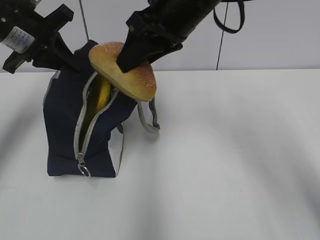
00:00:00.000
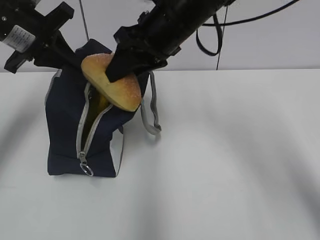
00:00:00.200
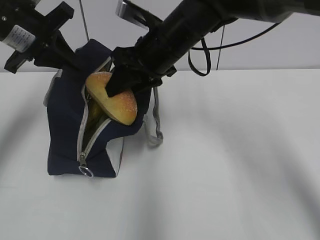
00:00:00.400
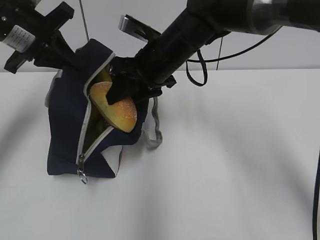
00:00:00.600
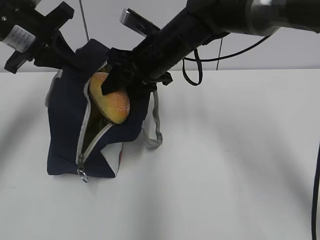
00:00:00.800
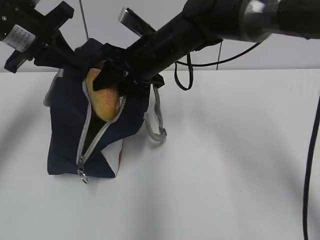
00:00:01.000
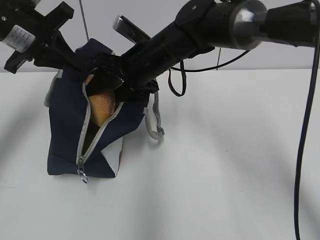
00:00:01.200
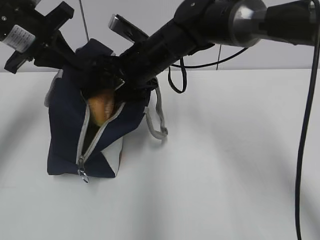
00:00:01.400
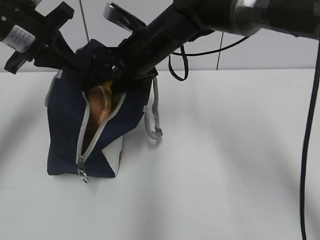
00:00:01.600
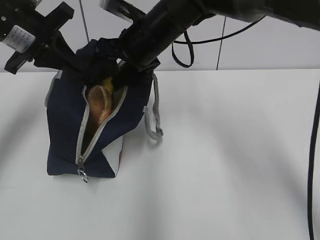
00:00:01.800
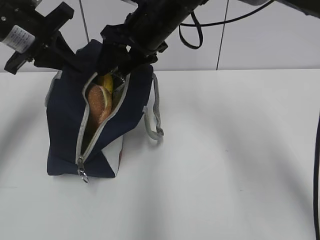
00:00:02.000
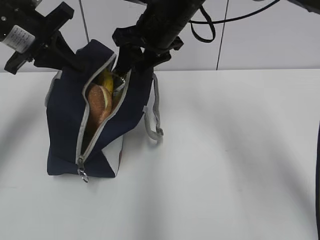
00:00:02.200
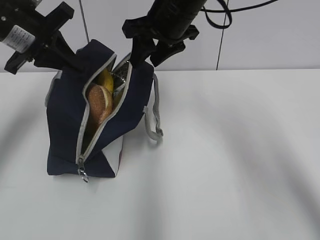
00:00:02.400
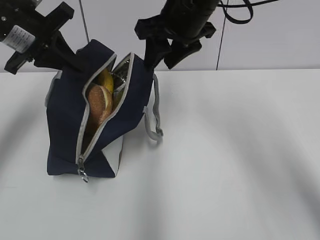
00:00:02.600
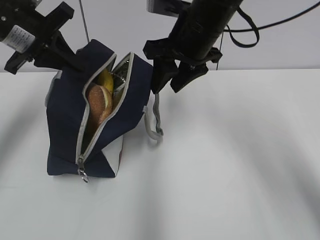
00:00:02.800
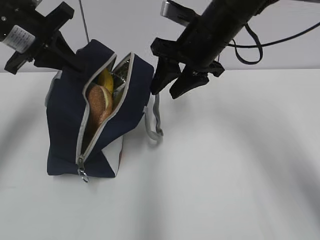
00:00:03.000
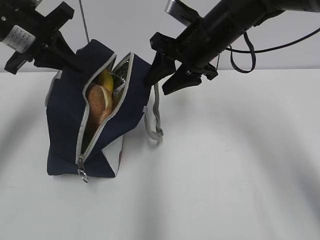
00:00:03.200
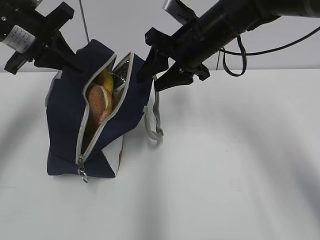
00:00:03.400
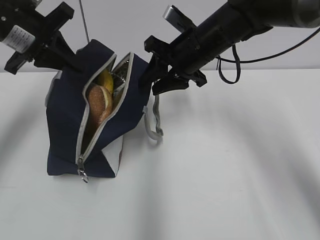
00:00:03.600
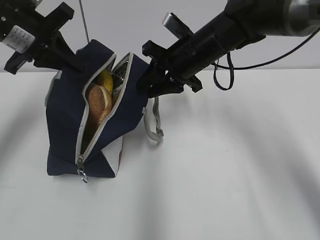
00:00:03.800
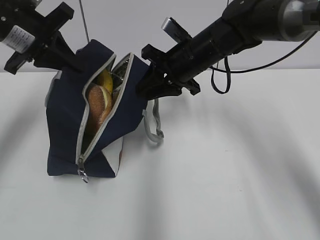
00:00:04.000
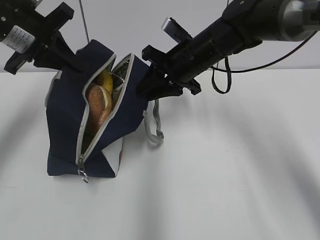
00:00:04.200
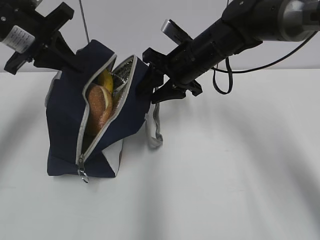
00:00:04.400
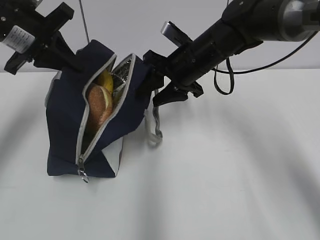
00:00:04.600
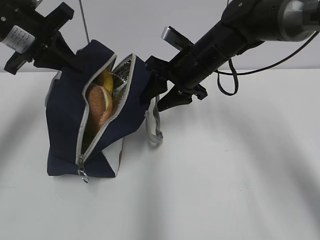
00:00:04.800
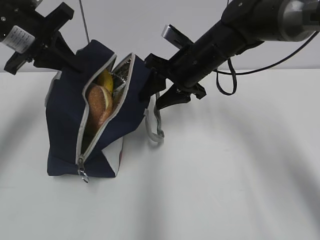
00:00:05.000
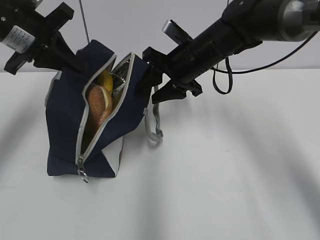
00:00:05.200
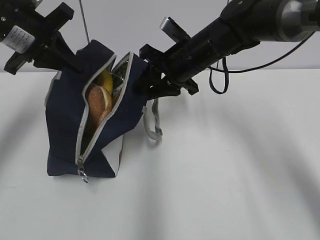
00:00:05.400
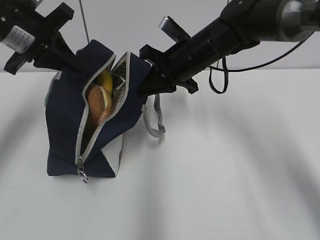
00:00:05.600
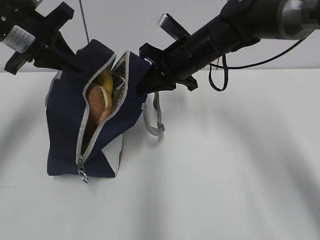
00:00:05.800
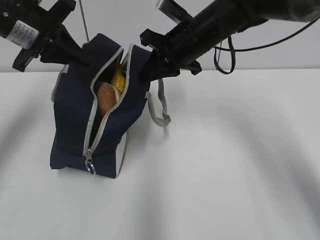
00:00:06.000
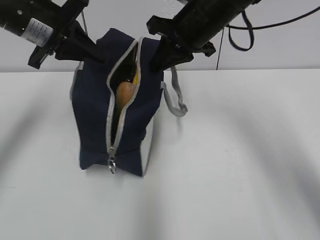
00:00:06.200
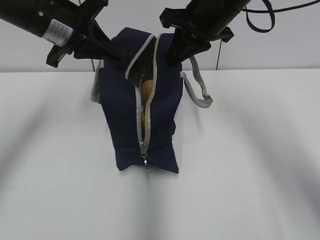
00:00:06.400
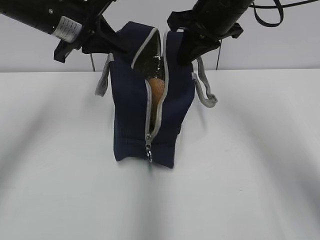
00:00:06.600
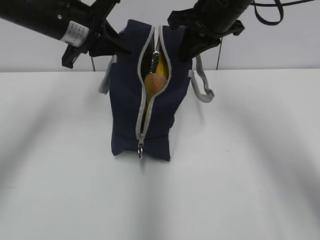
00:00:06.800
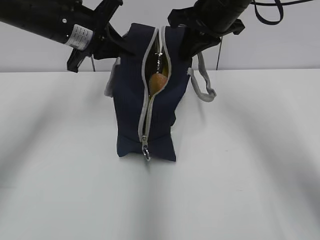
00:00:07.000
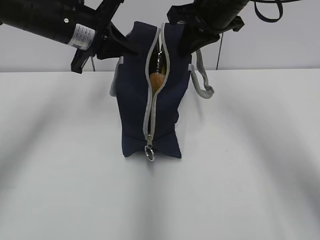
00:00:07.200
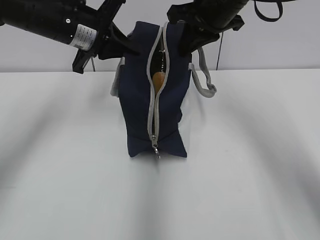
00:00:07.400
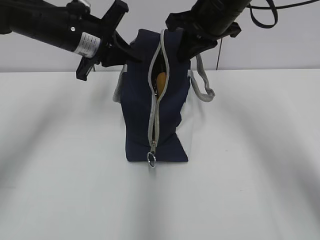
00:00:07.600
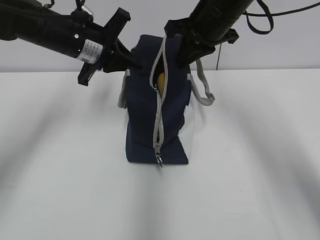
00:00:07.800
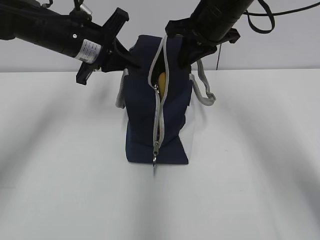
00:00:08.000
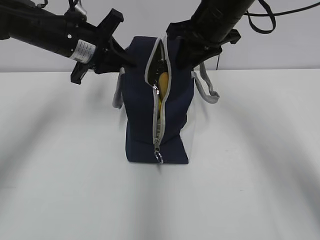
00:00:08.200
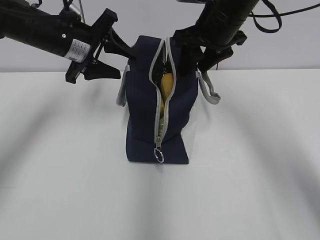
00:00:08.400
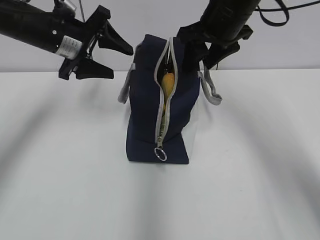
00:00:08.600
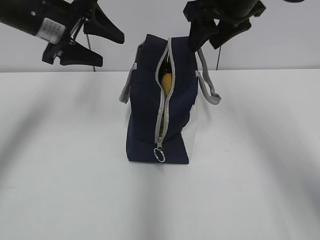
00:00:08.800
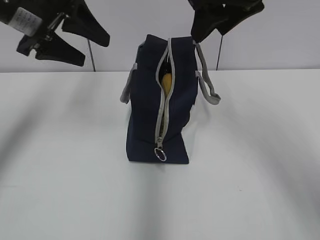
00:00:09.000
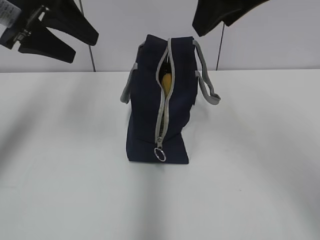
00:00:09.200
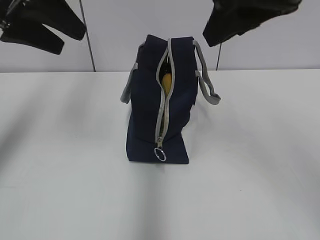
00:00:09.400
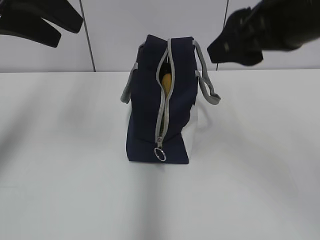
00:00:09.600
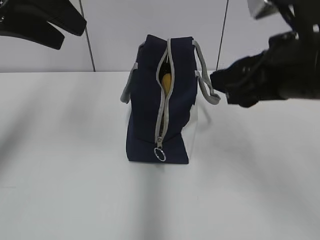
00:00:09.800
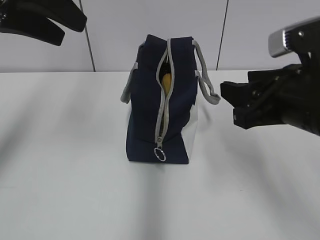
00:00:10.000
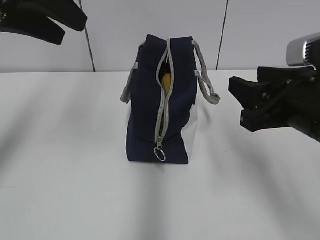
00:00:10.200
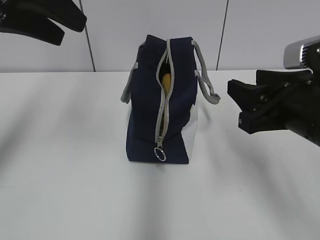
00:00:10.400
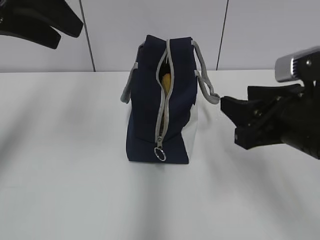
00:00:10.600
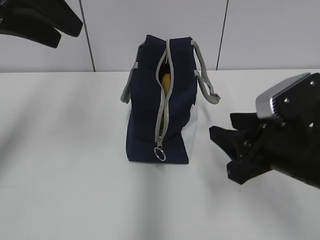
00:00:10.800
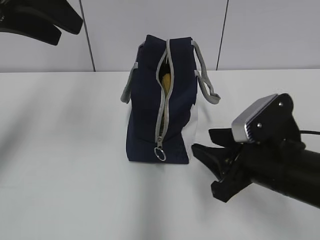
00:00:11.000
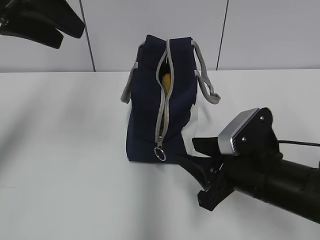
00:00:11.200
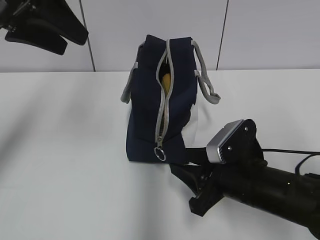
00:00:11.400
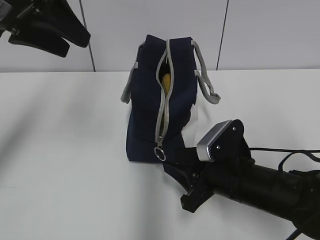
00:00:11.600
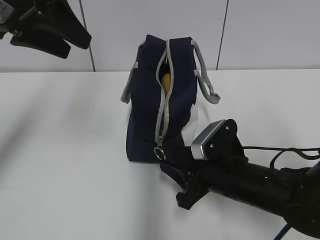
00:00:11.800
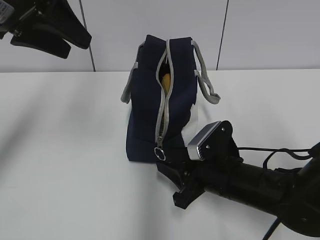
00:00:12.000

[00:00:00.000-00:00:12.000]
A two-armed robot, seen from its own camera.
Step, 00:00:02.000 to 00:00:05.600: Grab the lunch bag with your right hand.
Step, 00:00:05.800 to 00:00:08.200: Move the lunch bag to the right.
00:00:00.000 to 00:00:01.600: The right gripper is displaced downward, forward and to the left by approximately 10 cm, and opens up.
00:00:01.600 to 00:00:03.000: The right gripper is displaced to the right by approximately 10 cm.
00:00:03.000 to 00:00:04.400: The right gripper goes about 5 cm downward.
00:00:04.400 to 00:00:06.000: The right gripper closes up.
00:00:06.000 to 00:00:07.600: The left gripper shifts about 5 cm to the right. The right gripper is displaced upward by about 5 cm.
00:00:07.600 to 00:00:09.000: The left gripper shifts approximately 10 cm upward and to the left, and opens up. Meanwhile the right gripper heads upward and backward, covering about 10 cm, and opens its fingers.
00:00:09.000 to 00:00:10.400: The left gripper moves backward and upward, about 10 cm. Meanwhile the right gripper shifts roughly 20 cm downward and backward.
00:00:10.400 to 00:00:12.000: The right gripper travels downward and to the left by about 15 cm.

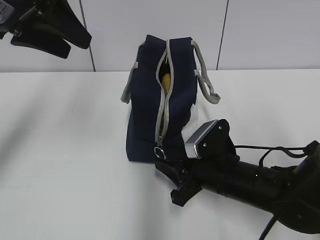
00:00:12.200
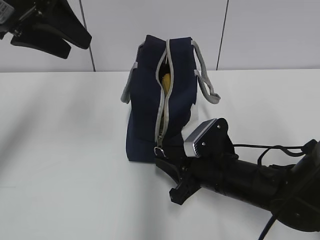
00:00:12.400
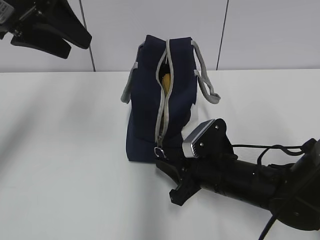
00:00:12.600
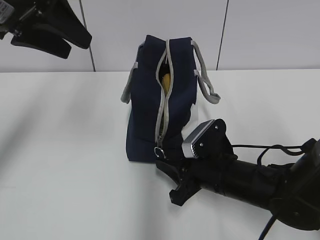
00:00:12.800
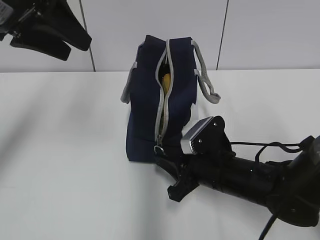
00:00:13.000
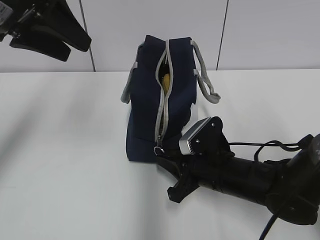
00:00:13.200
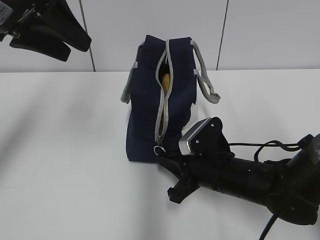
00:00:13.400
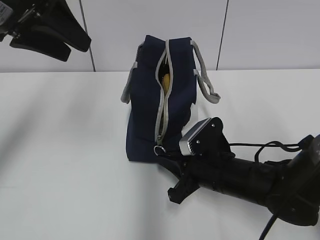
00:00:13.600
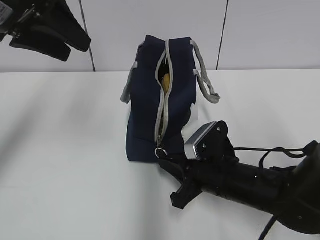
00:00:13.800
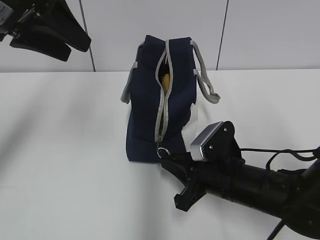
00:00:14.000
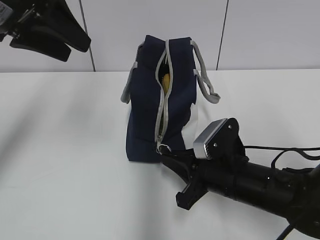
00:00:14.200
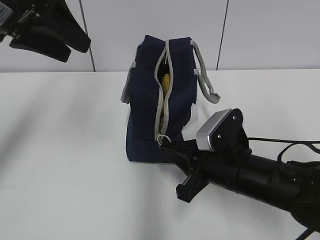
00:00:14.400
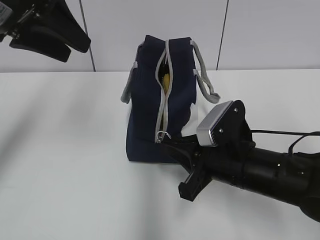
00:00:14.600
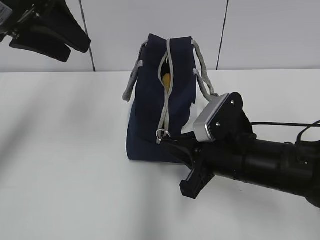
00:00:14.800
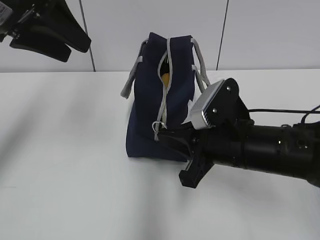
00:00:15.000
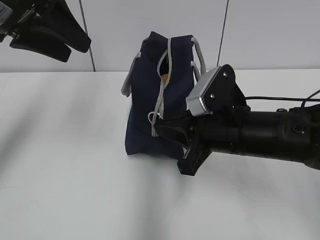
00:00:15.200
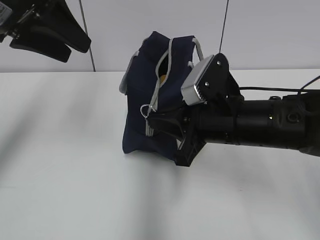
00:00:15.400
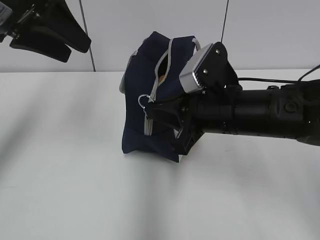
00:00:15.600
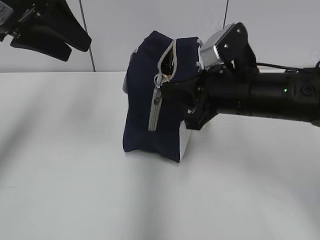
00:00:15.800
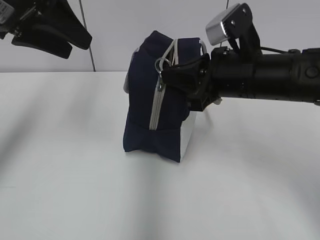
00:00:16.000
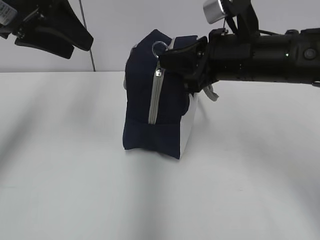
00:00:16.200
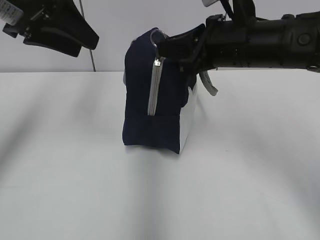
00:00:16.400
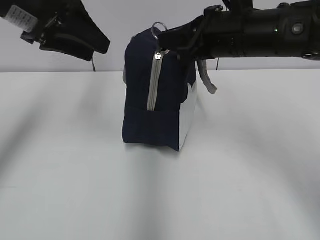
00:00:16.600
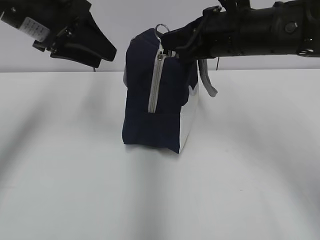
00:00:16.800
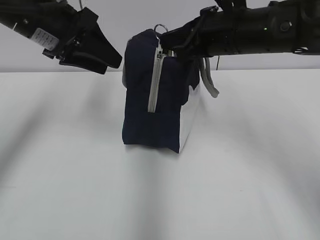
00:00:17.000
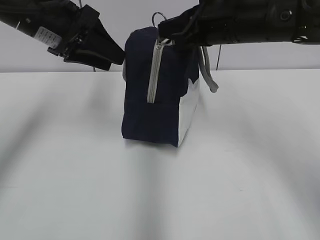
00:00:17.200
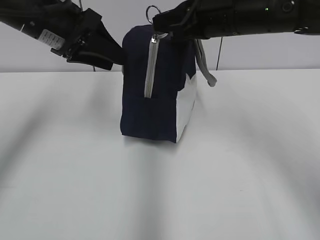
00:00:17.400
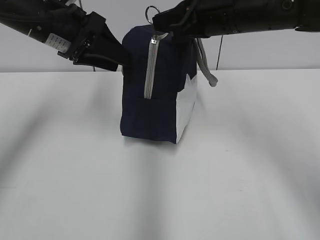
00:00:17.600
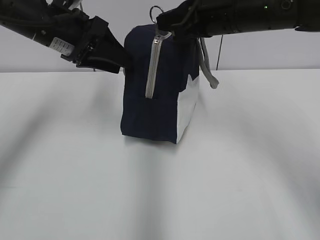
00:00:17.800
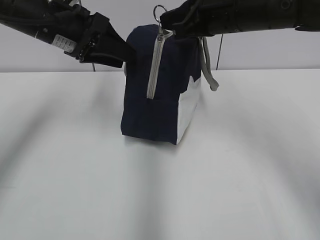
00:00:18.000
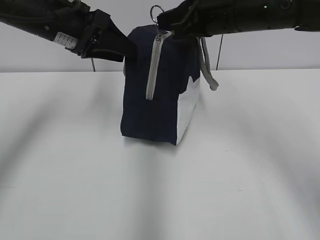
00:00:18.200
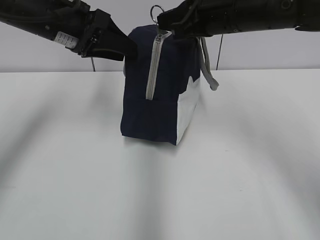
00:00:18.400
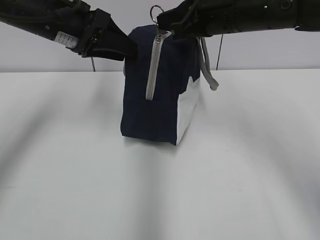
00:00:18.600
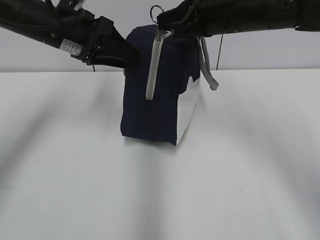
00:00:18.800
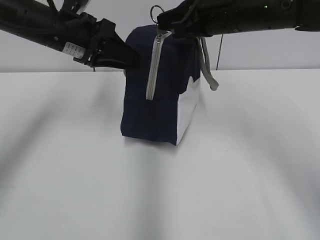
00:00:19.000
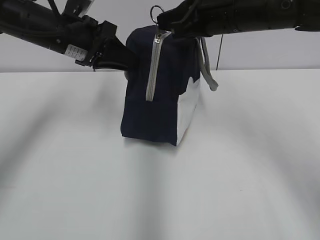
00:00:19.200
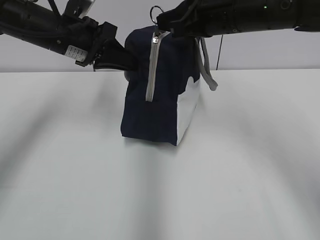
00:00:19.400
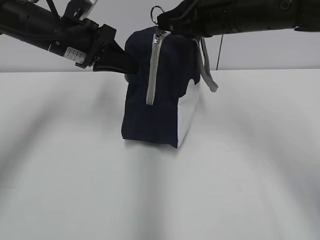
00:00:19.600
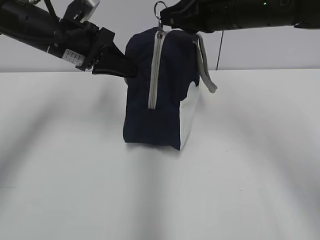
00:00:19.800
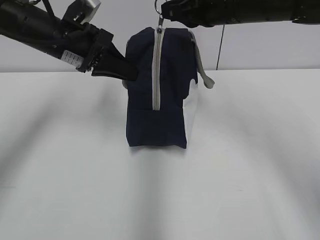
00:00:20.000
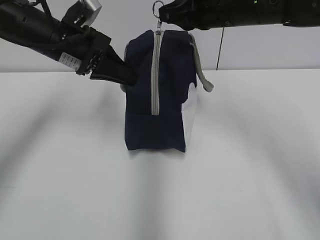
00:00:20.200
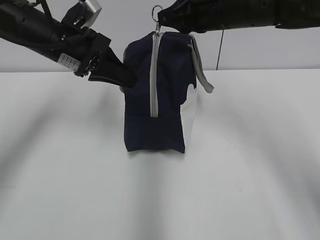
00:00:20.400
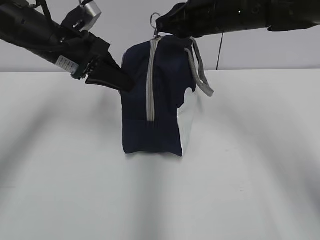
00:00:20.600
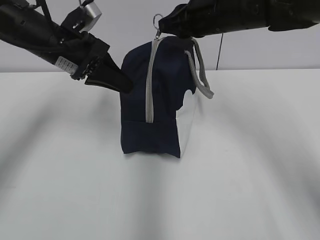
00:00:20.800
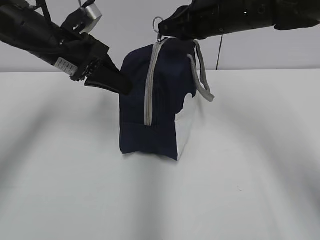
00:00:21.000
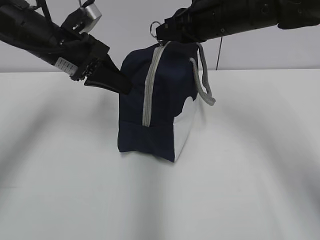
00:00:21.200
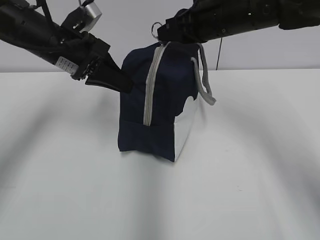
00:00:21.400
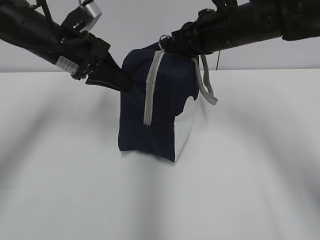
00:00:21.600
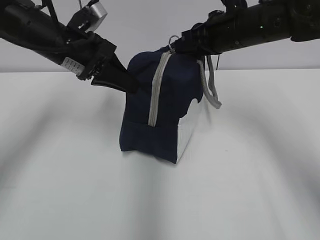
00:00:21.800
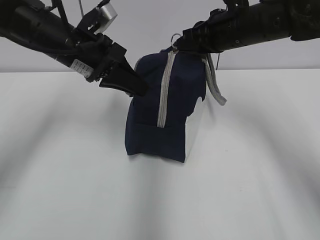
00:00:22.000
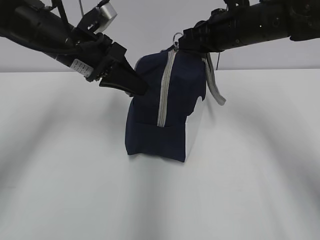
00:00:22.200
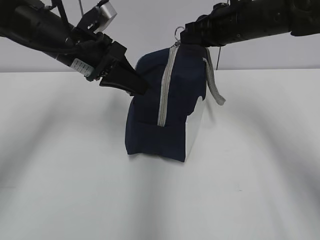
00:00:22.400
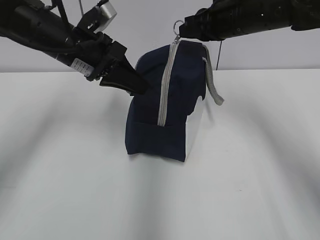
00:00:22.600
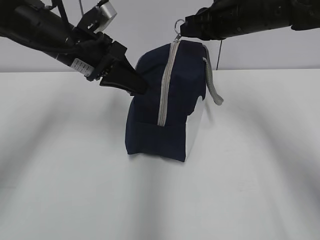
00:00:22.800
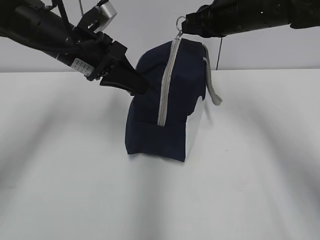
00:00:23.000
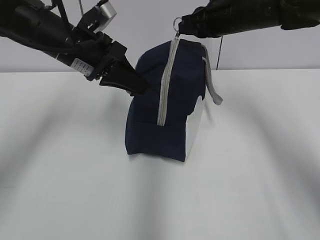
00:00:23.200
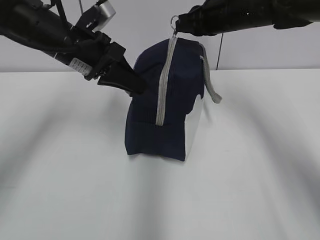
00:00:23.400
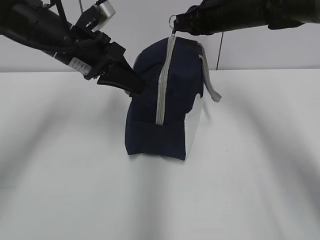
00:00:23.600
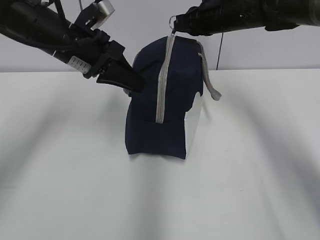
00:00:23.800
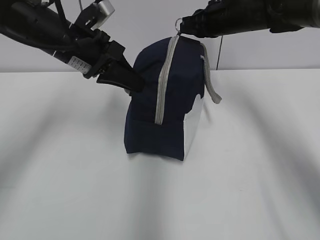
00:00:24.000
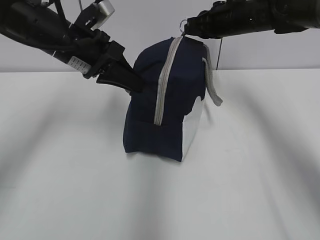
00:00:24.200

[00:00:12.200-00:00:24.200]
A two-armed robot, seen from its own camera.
00:00:12.200 to 00:00:13.800: The right gripper closes its fingers.
00:00:13.800 to 00:00:15.200: The right gripper shifts about 10 cm upward.
00:00:15.200 to 00:00:16.600: The right gripper travels upward and forward by roughly 15 cm.
00:00:16.600 to 00:00:18.200: The left gripper heads downward, covering roughly 5 cm.
00:00:18.200 to 00:00:19.800: The left gripper closes.
00:00:19.800 to 00:00:21.200: There are only small adjustments of the grippers.
00:00:21.200 to 00:00:22.600: There are only small adjustments of the grippers.
00:00:22.600 to 00:00:24.200: The right gripper shifts about 5 cm forward.
